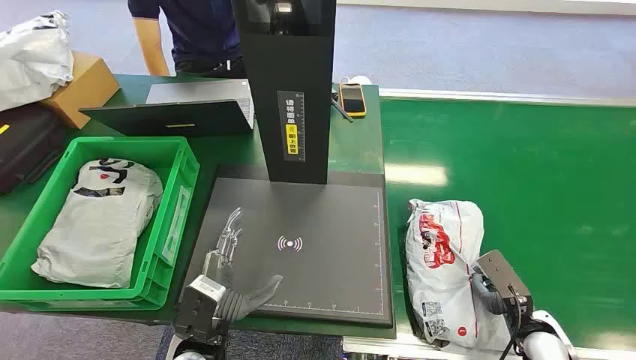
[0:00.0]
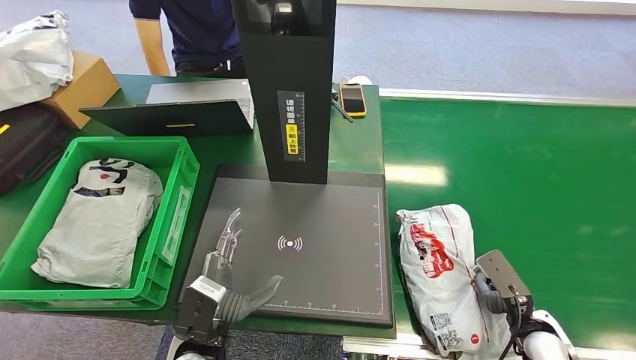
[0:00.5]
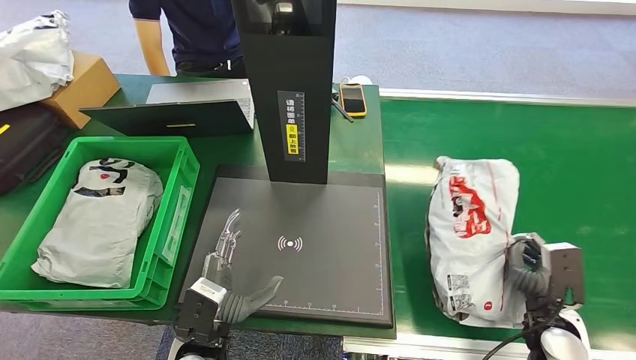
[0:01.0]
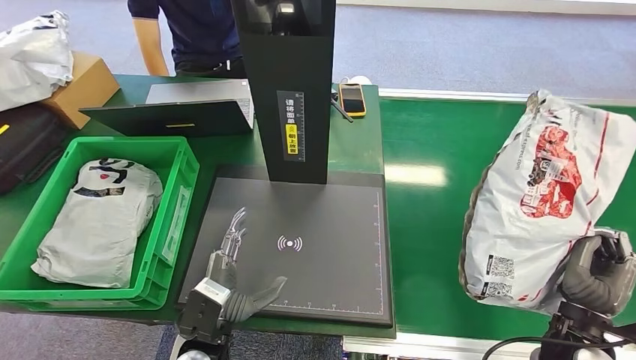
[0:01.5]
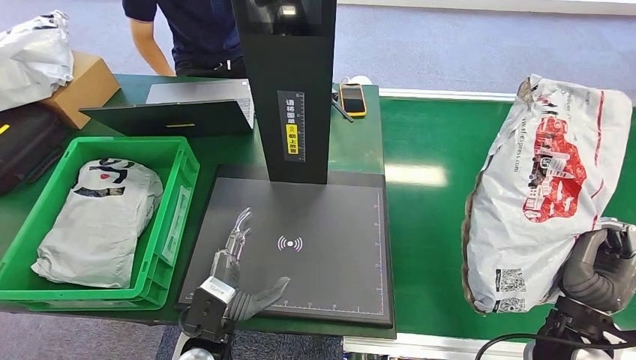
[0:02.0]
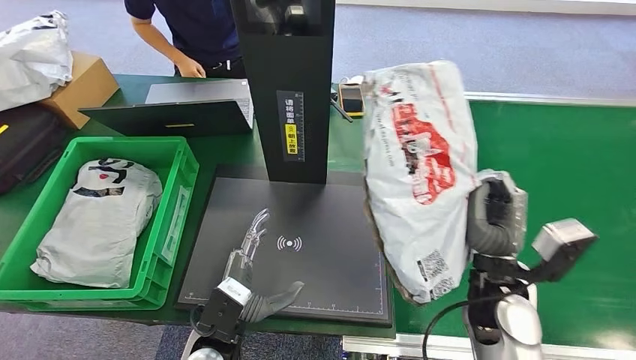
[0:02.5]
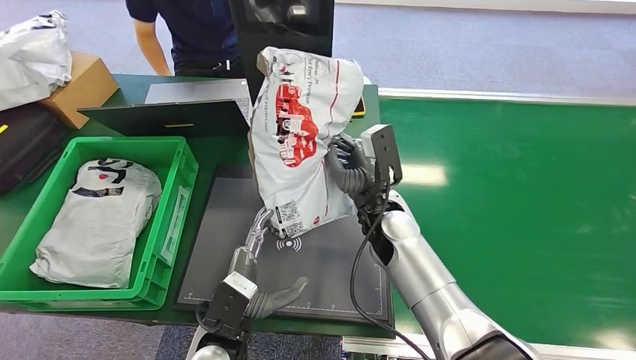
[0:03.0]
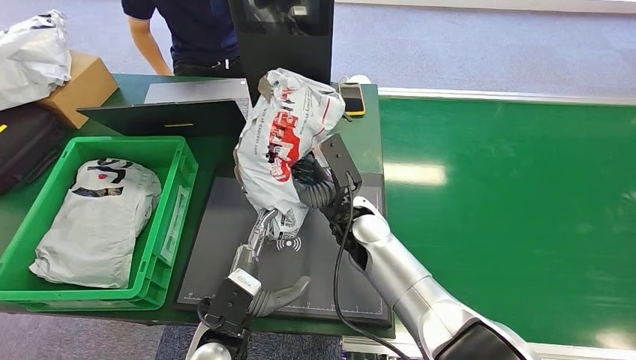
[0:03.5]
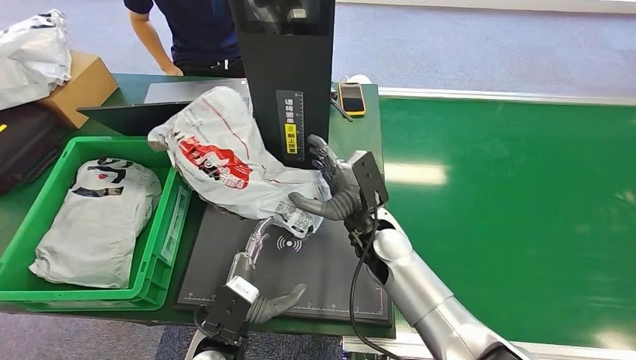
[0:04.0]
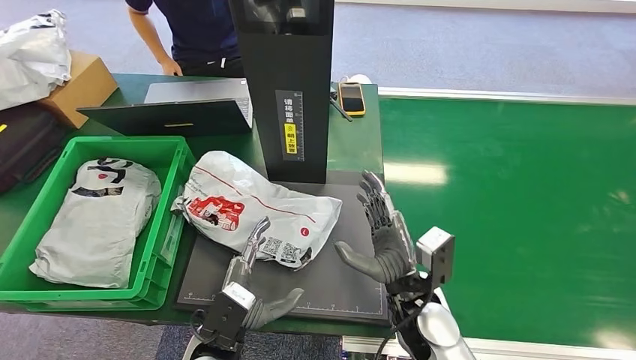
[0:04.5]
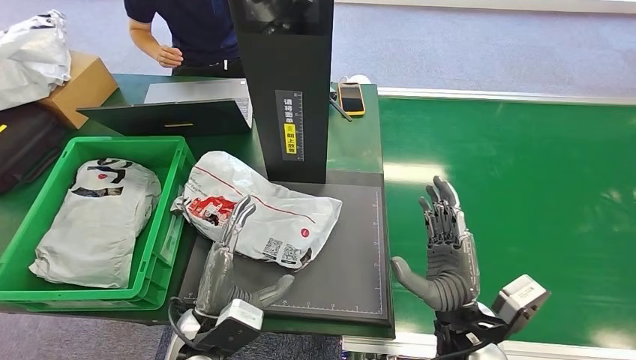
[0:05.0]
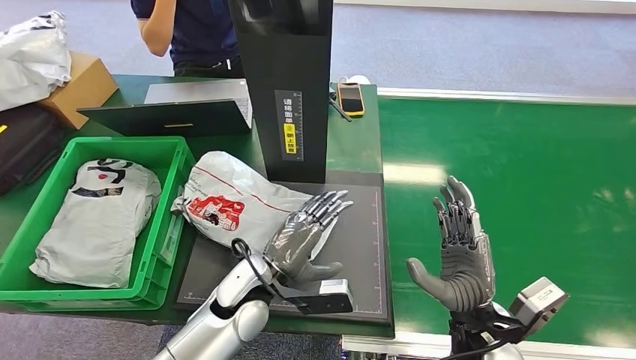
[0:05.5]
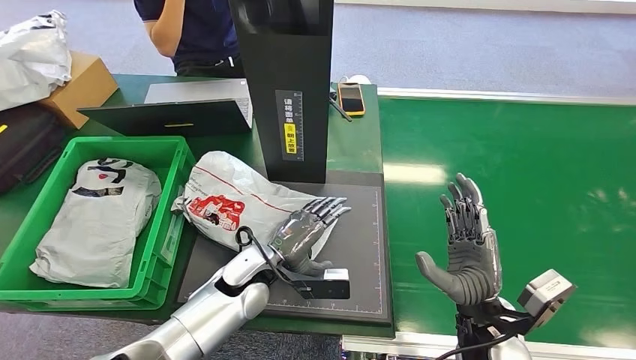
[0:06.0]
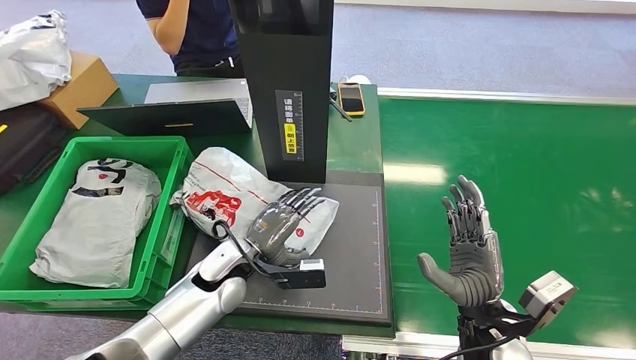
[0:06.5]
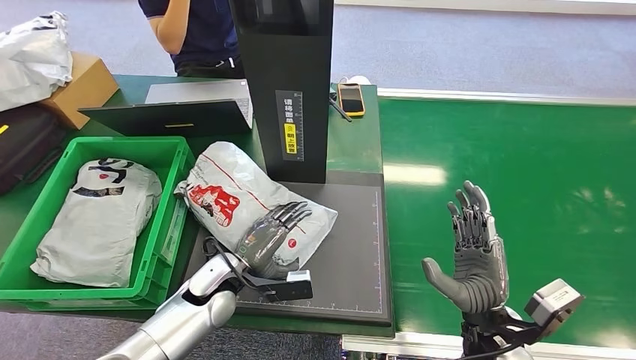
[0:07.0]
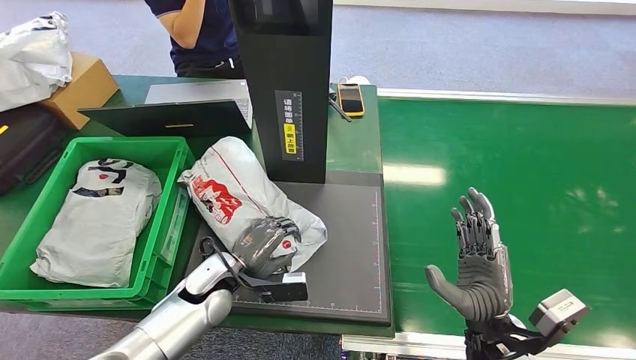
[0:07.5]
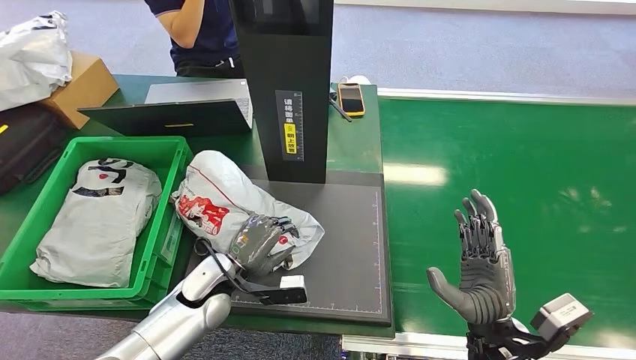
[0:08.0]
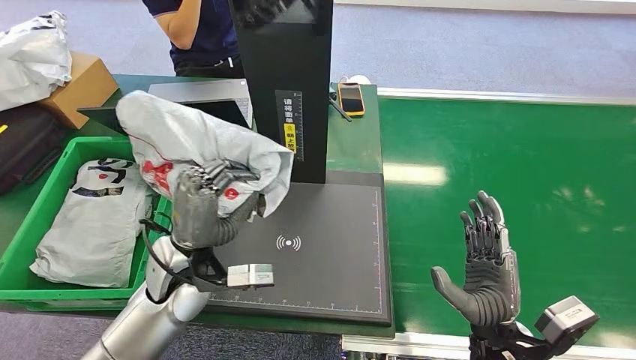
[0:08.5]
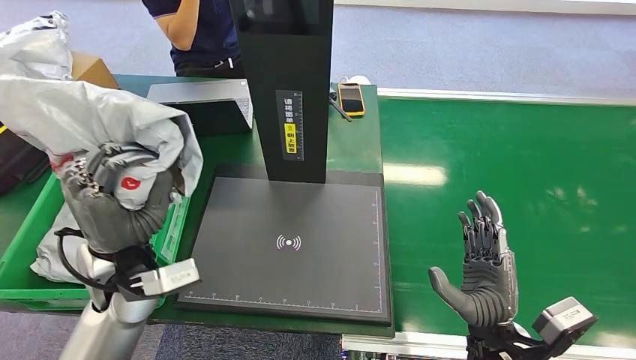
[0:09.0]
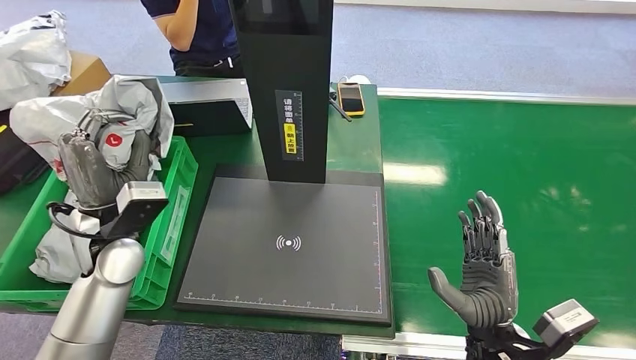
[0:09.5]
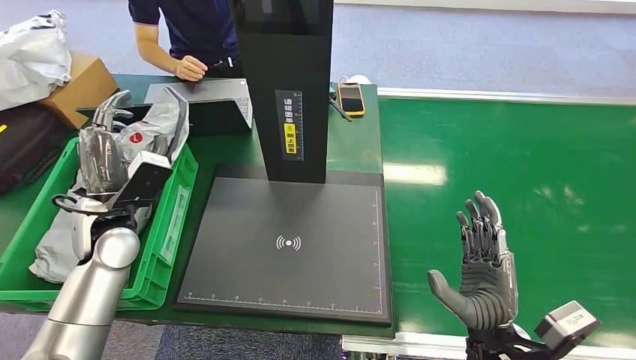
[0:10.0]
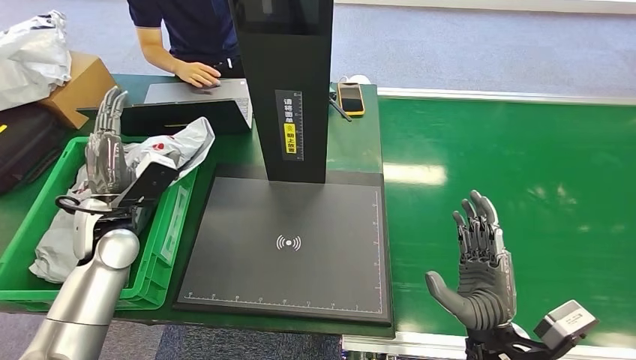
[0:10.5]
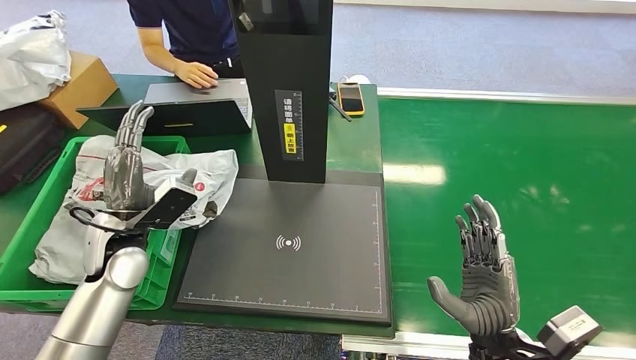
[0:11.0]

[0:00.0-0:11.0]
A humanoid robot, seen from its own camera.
Step, 0:00.0 to 0:01.5: Pick up the package from the conveyor belt.
Step, 0:02.0 to 0:05.5: Place the package onto the inbound machine.
Step, 0:06.0 to 0:09.5: Pick up the package from the inbound machine.
Step, 0:10.0 to 0:11.0: Place the package into the parcel locker.
0:05.5 to 0:07.5: The left hand goes approximately 10 cm to the left and downward.
